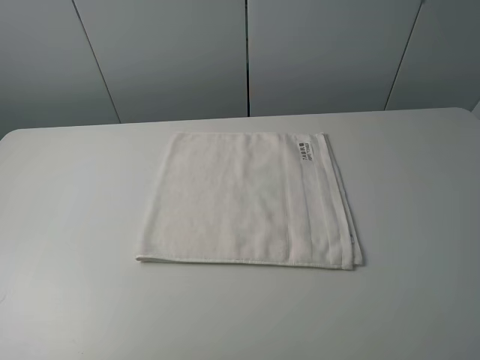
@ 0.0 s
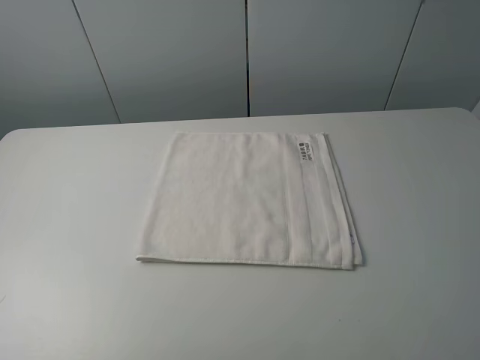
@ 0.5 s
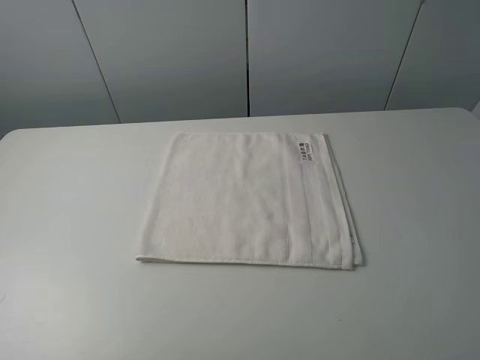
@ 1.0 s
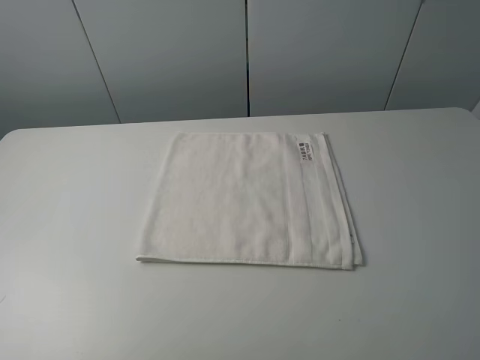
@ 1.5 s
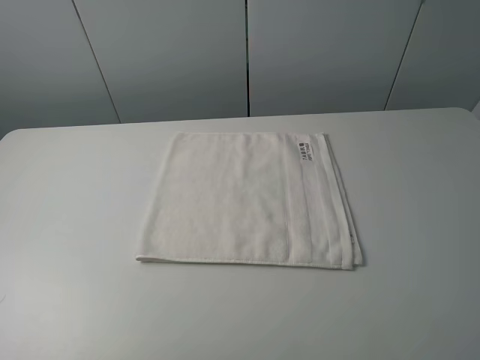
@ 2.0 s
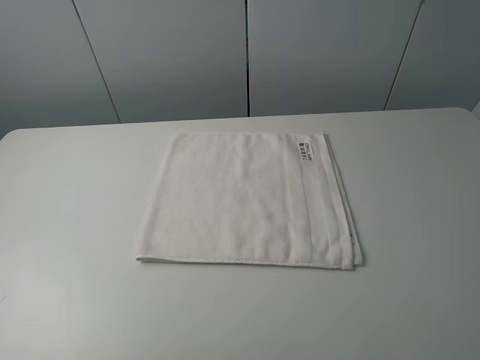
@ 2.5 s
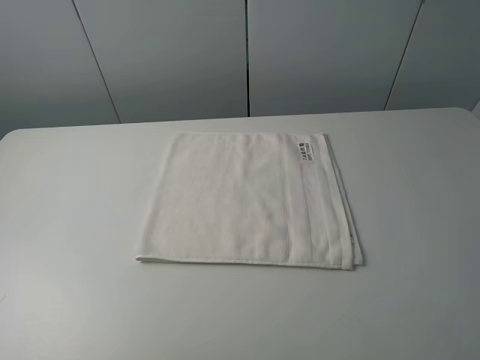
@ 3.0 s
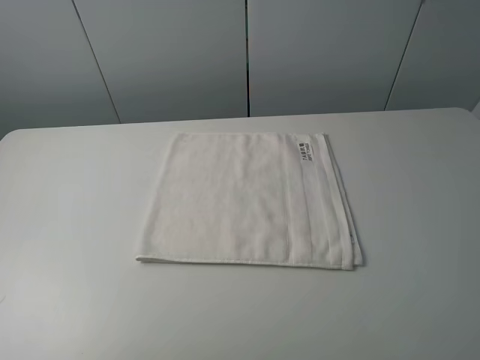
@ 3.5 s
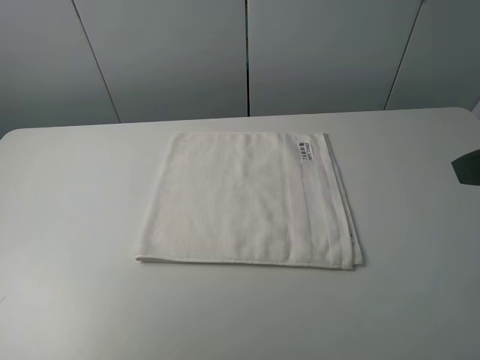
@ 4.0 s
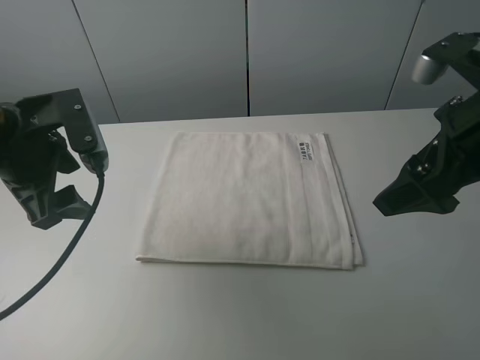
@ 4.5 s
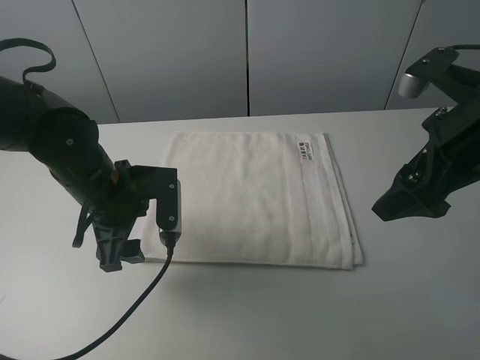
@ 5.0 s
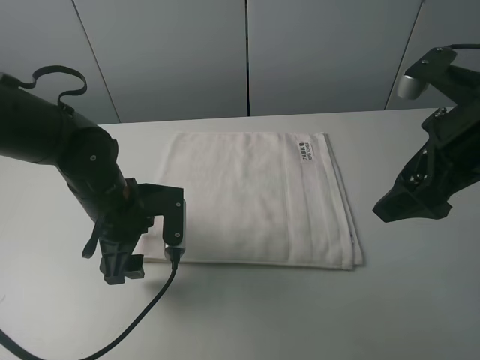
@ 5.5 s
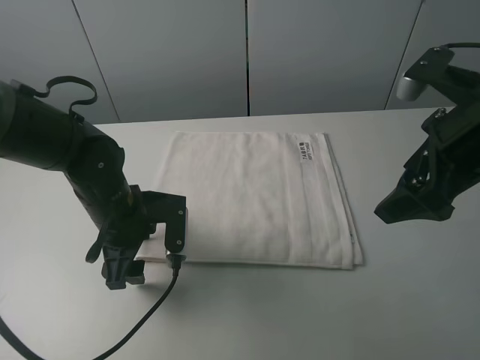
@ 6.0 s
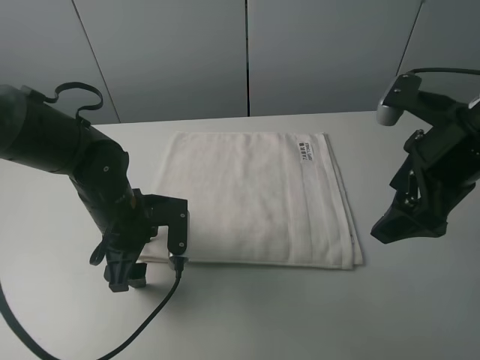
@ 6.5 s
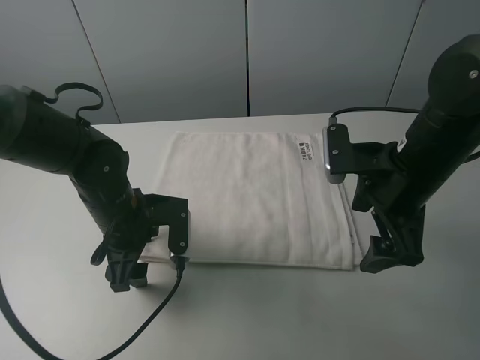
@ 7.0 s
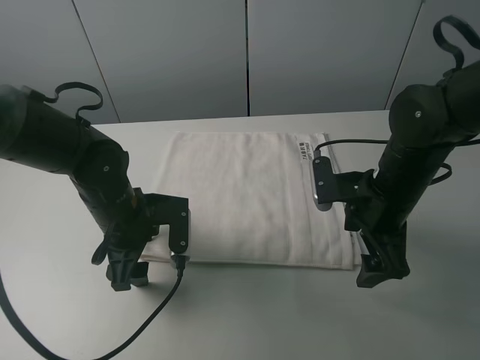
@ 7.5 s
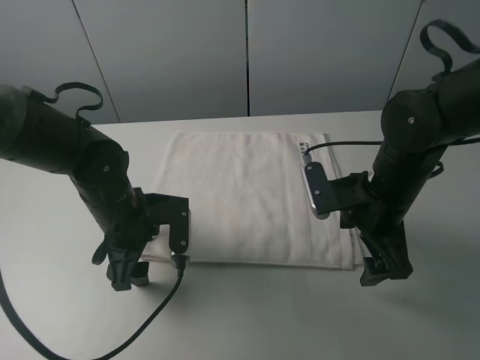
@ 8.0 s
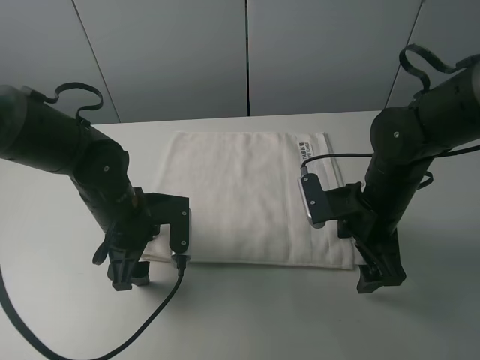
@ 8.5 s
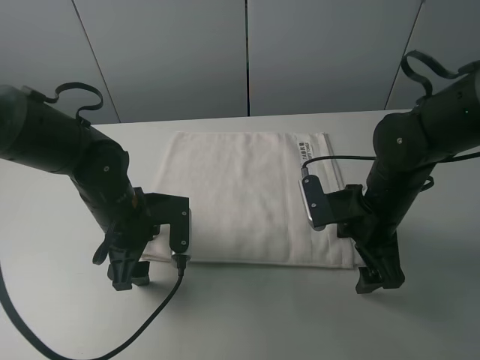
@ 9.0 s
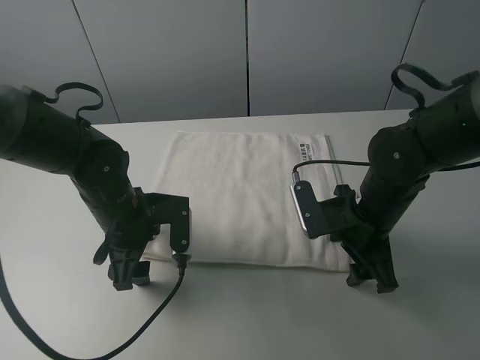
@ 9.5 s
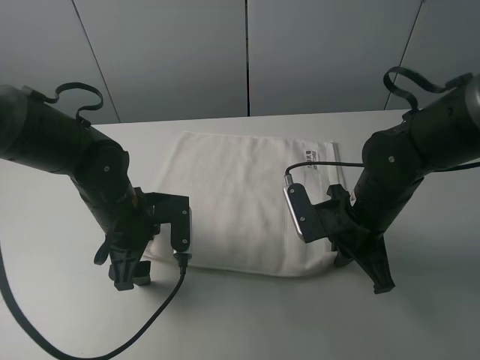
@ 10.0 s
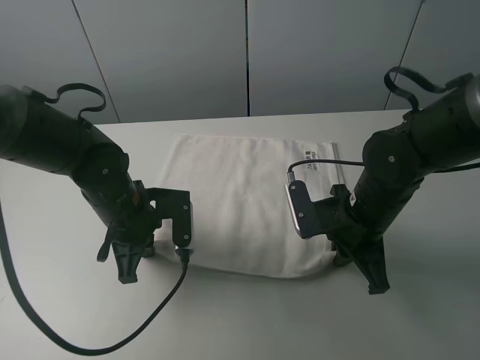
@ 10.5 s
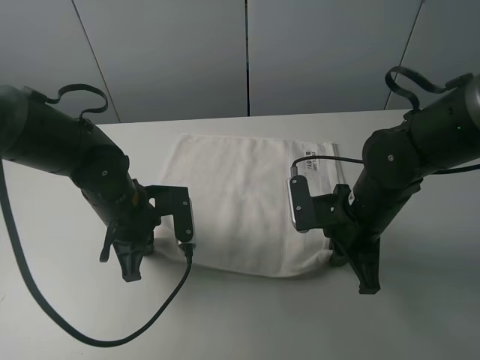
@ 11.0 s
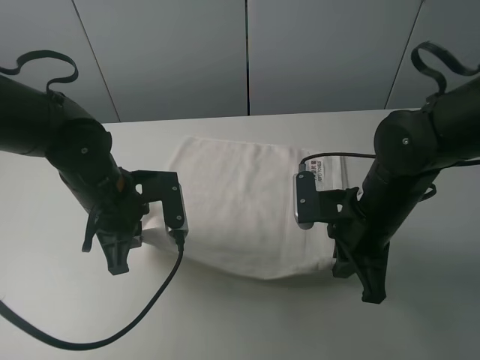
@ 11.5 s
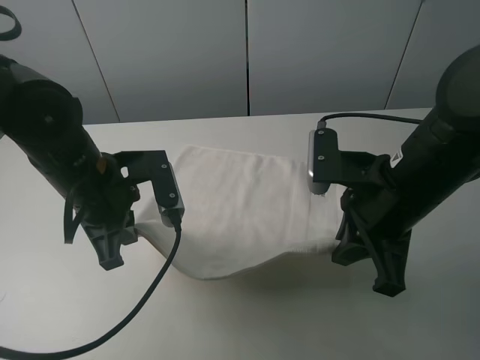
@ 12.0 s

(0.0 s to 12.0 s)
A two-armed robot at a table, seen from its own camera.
Task of the whole recording: fold the towels on the table.
Step, 0.0 s - 9.5 s: Grasp the white towel with the right gripper.
Step, 10.0 s - 10.5 s: Grasp the white towel with the left gripper.
0.0 s - 2.0 s: The two grippers keep their place.
4.0 s - 6.0 s: The left gripper travels downward, to the right and forward by some 30 cm; the right gripper shifts some 10 cm forward and downward.
6.0 s - 8.0 s: The right gripper shifts about 15 cm downward and to the left.
8.0 s - 10.0 s: The right gripper closes.
10.0 s - 12.0 s: Both grippers move upward, roughly 10 cm. The left gripper closes up.

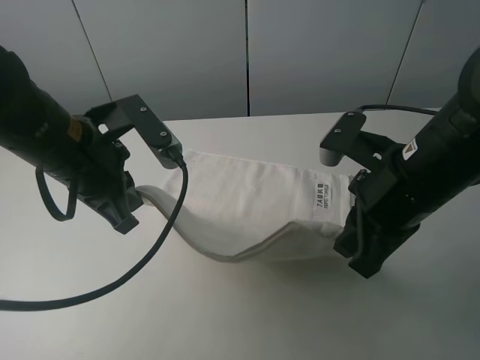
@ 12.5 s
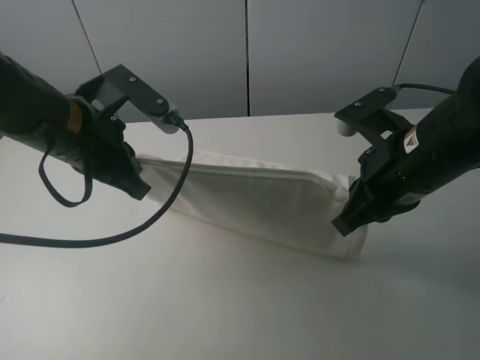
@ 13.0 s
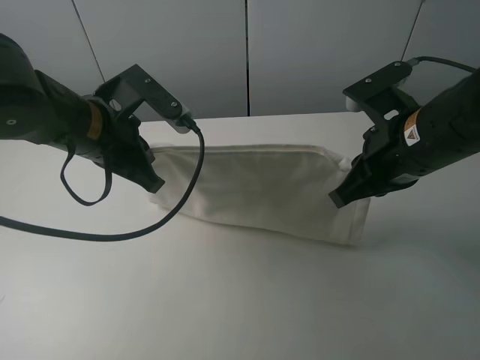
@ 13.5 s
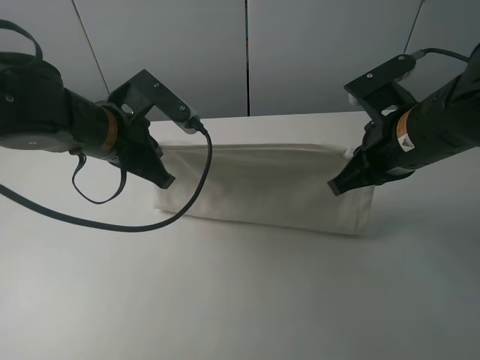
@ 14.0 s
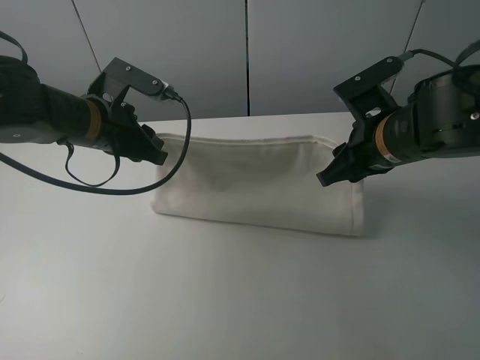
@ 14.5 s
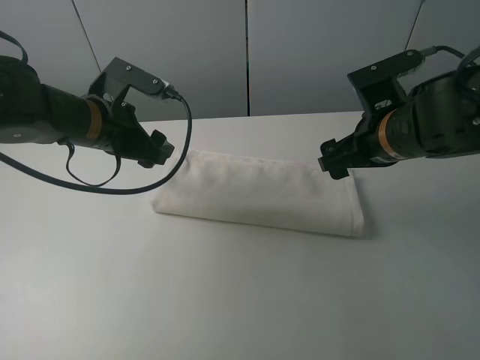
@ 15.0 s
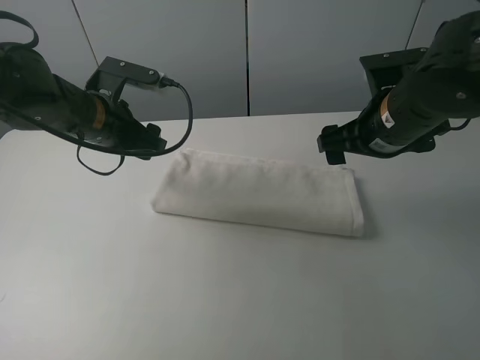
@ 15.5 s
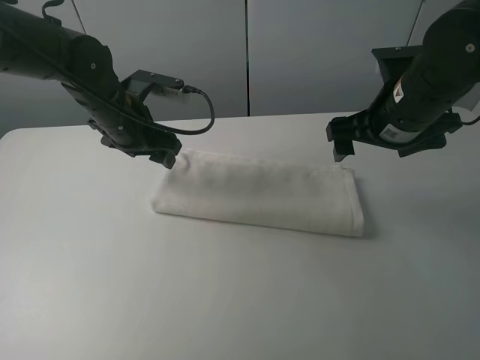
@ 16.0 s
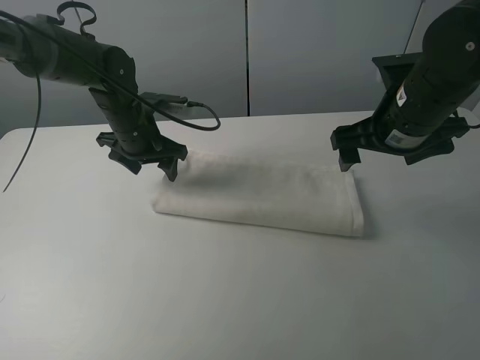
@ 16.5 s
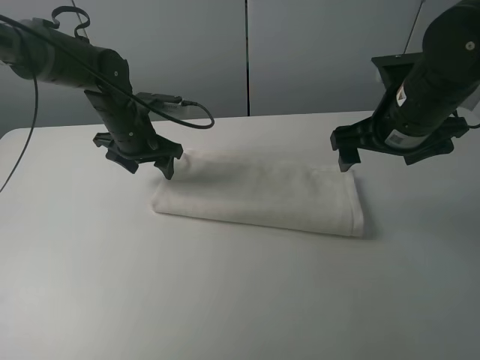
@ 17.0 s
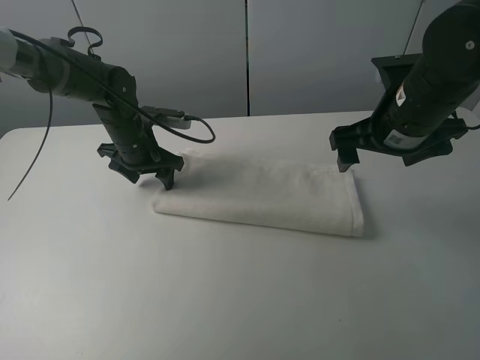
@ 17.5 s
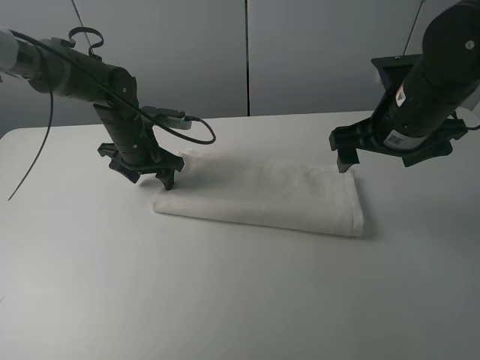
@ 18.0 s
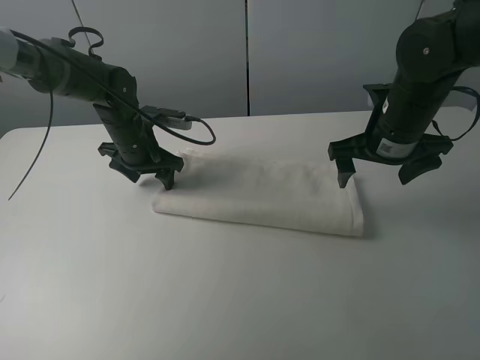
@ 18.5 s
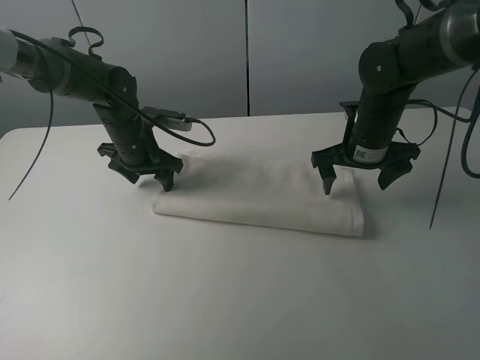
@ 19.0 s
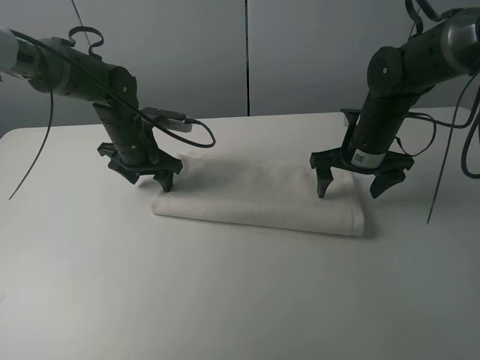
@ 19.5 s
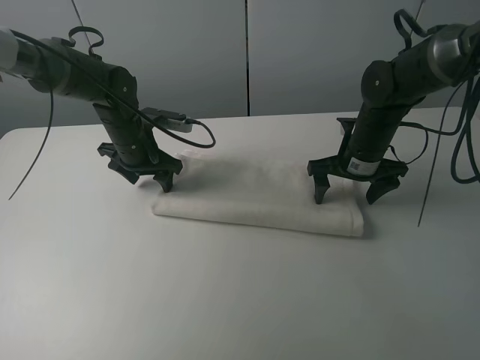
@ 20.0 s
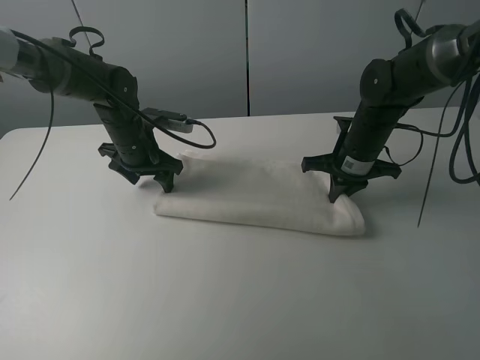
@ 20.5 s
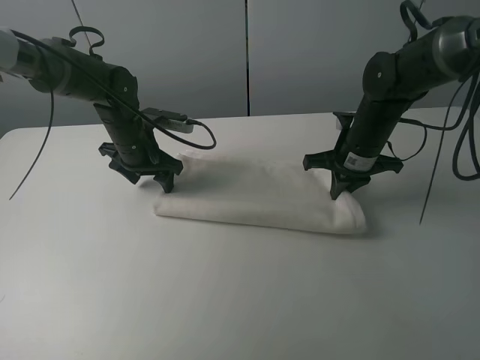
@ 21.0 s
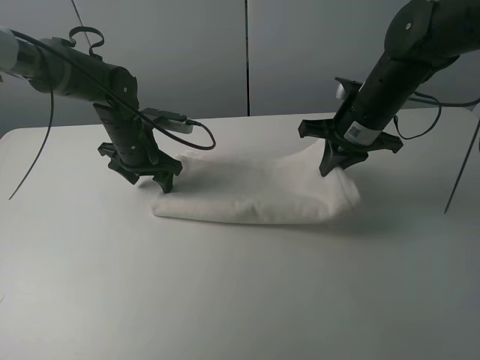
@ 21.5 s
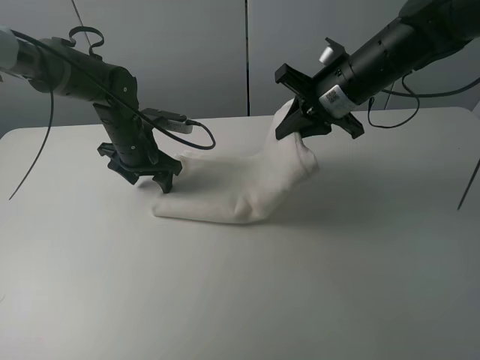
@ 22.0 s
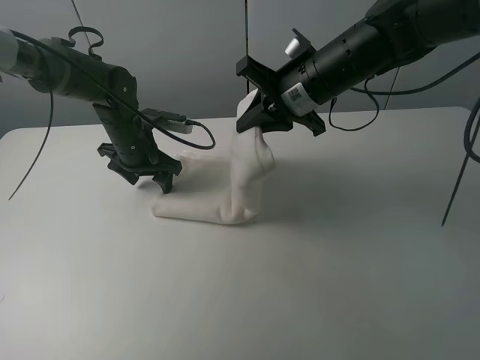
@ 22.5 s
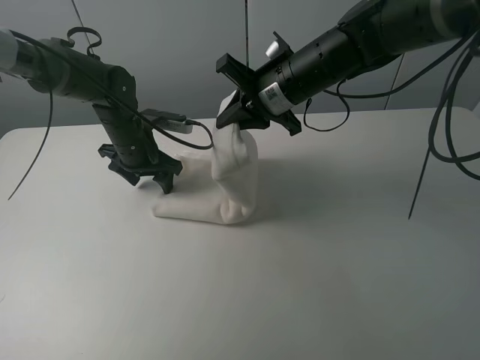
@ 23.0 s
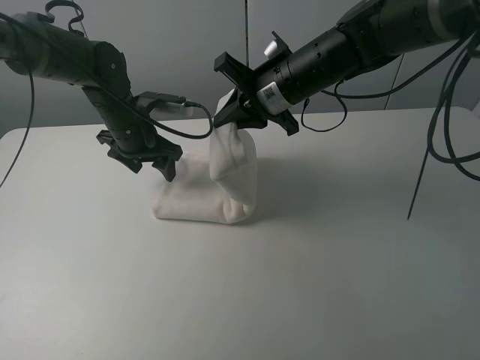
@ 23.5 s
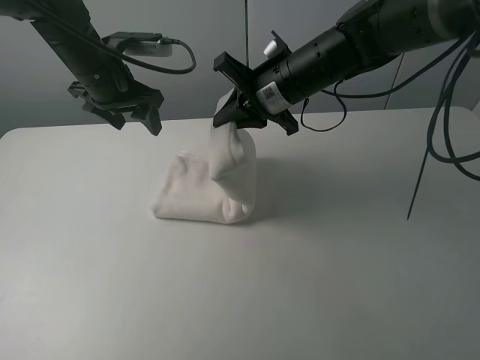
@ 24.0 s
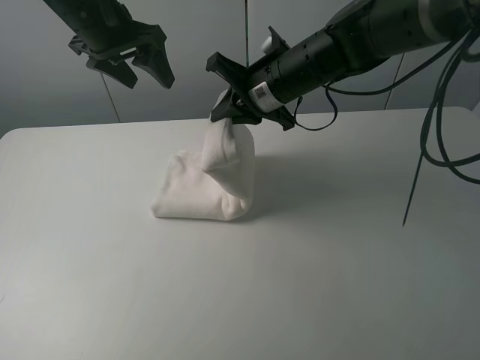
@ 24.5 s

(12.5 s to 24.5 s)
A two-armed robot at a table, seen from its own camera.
Task of the whole recording: fold the towels on the table.
Step, 12.5 s - 14.5 s: Fold the white towel upwards with the right gripper.
Step, 15.0 s - 17.0 s: Press on the white towel with the left gripper.
12.5 s - 14.5 s: The grippers both shift forward by some 10 cm. The left gripper opens its fingers. The right gripper opens.
14.5 s - 16.5 s: The left gripper shifts approximately 10 cm forward, while the right gripper opens up.
16.5 s - 18.5 s: The right gripper moves roughly 5 cm.
18.5 s - 20.5 s: The right gripper heads downward, covering about 5 cm, and closes up.
20.5 s - 22.5 s: The right gripper moves upward and to the left, roughly 15 cm.
22.5 s - 24.5 s: The left gripper heads upward, covering roughly 20 cm.

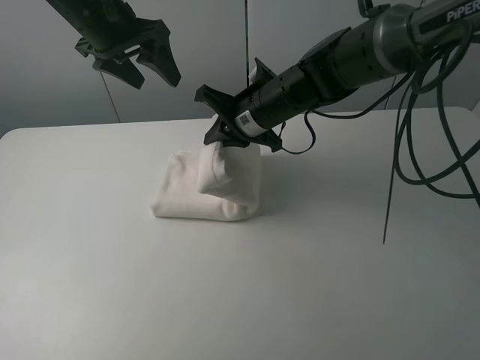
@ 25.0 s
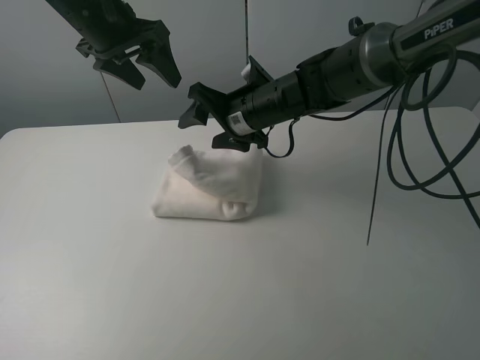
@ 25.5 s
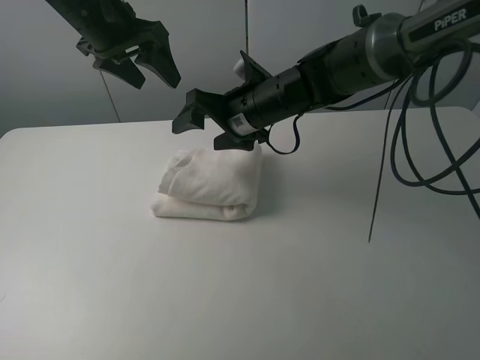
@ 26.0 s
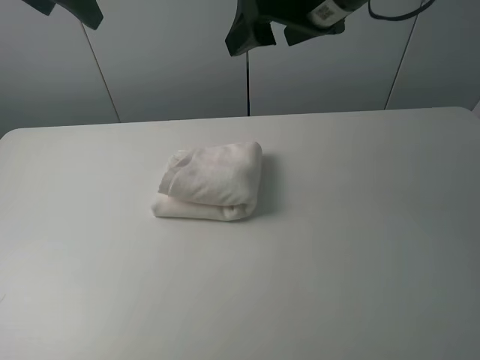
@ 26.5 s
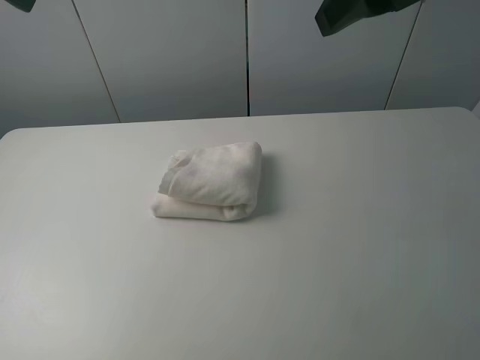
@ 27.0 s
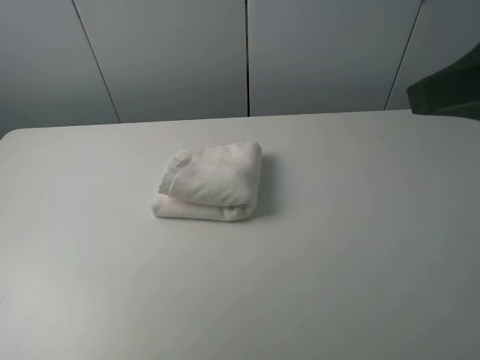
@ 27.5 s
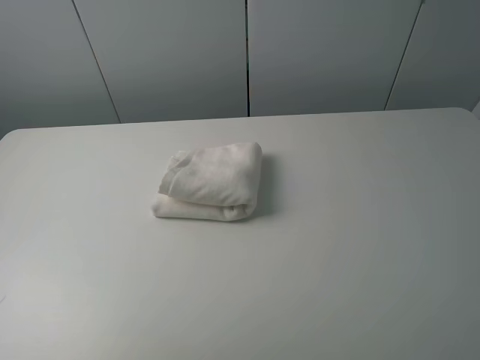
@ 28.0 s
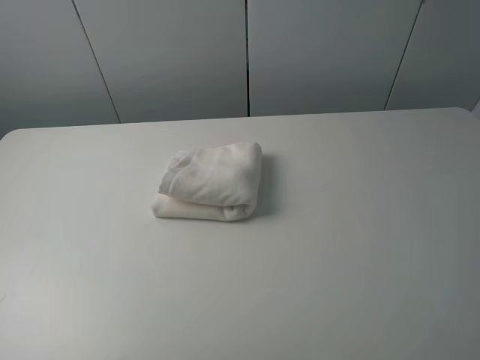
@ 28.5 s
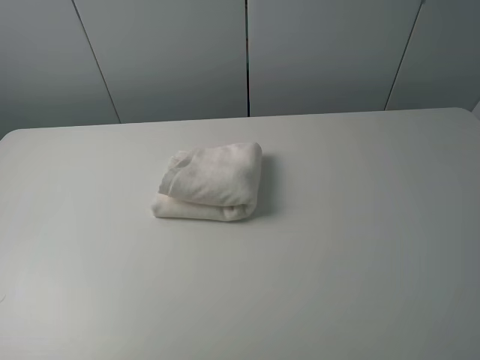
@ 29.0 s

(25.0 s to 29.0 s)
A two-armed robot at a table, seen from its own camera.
Task of the whole recording: fold the towels on the table.
25.0 s - 27.0 s: The left gripper moves backward, upward and to the left, about 20 cm; the right gripper is displaced upward, backward and to the right by some 30 cm, and opens.
27.0 s - 29.0 s: The right gripper heads backward, to the right and downward, covering some 25 cm.
